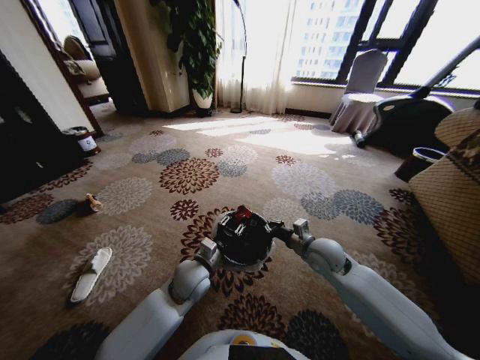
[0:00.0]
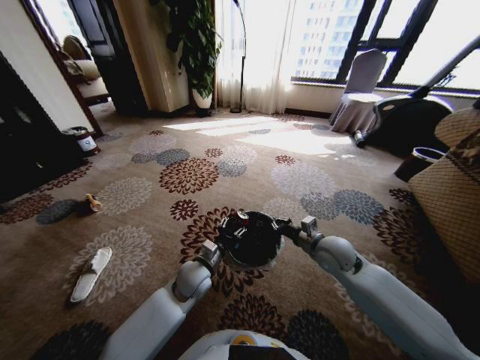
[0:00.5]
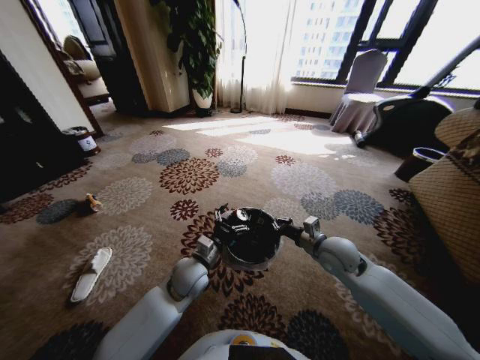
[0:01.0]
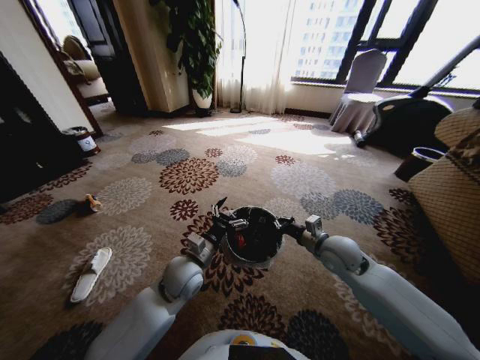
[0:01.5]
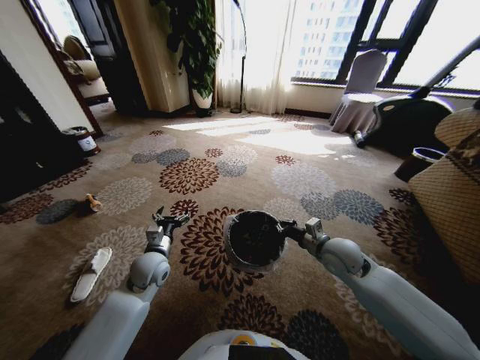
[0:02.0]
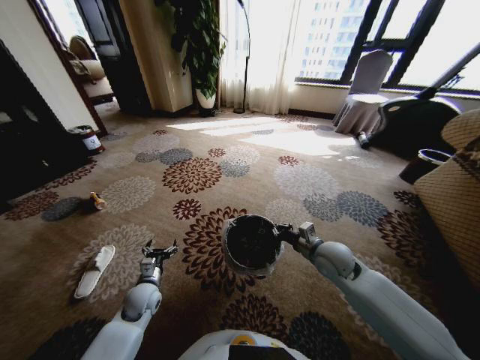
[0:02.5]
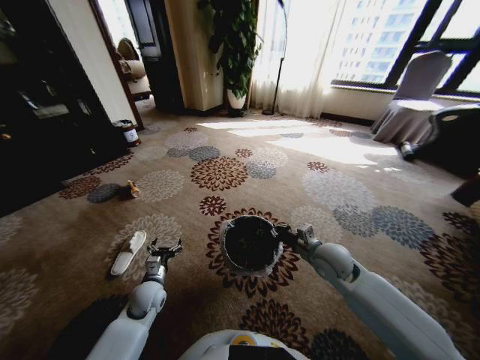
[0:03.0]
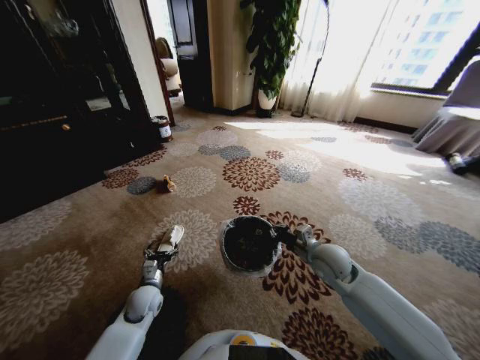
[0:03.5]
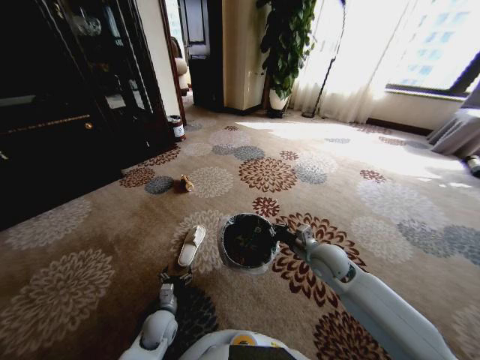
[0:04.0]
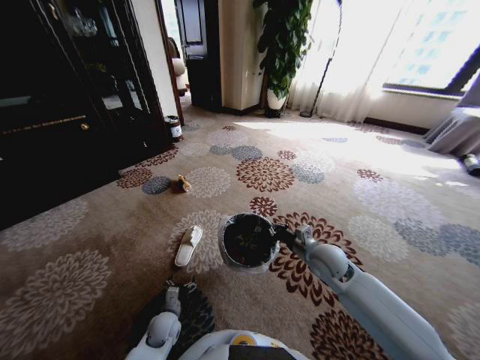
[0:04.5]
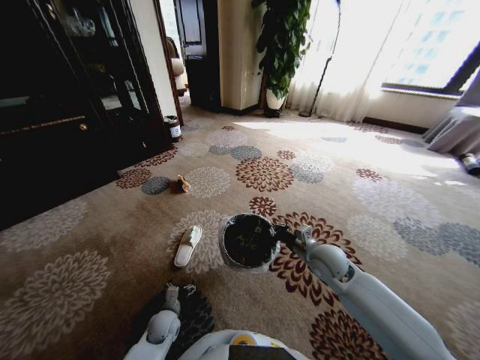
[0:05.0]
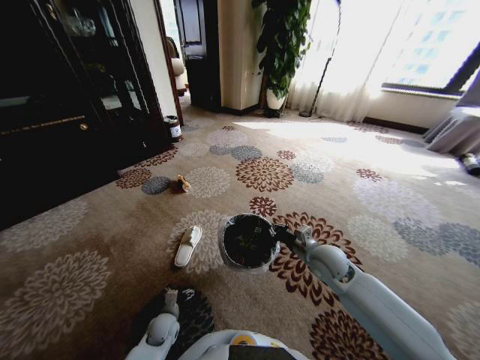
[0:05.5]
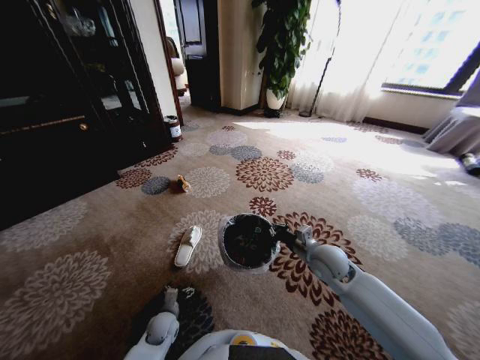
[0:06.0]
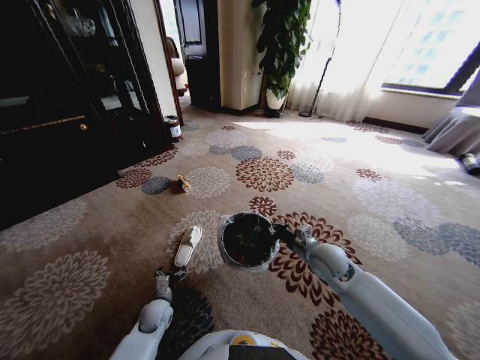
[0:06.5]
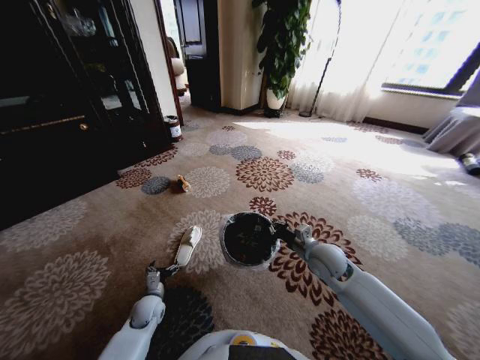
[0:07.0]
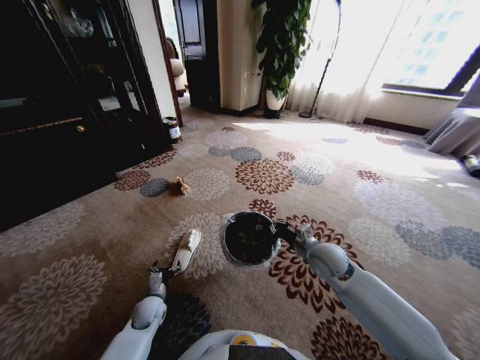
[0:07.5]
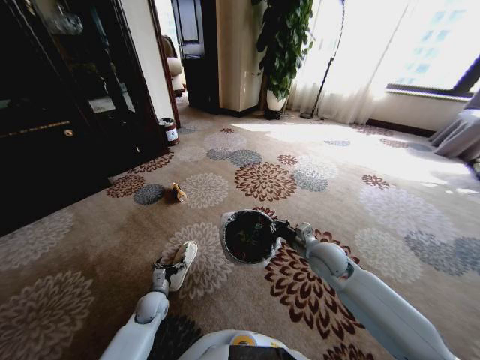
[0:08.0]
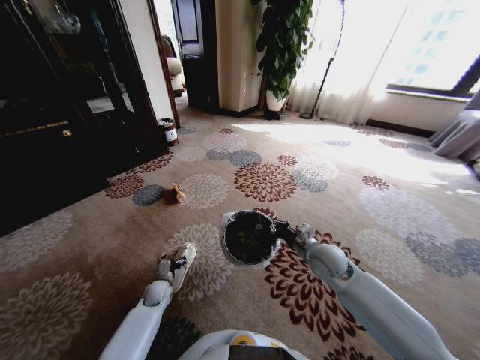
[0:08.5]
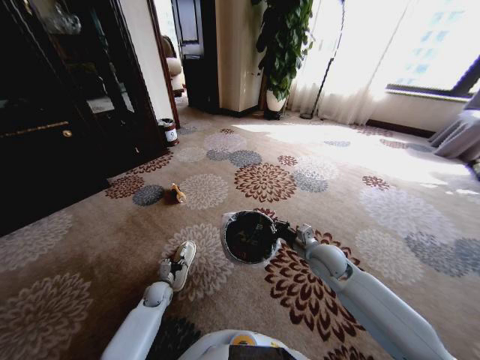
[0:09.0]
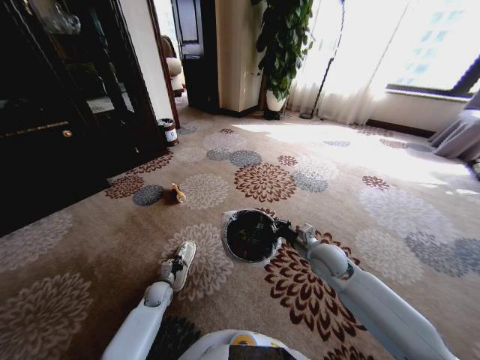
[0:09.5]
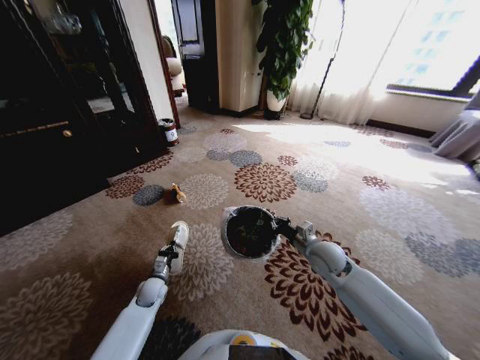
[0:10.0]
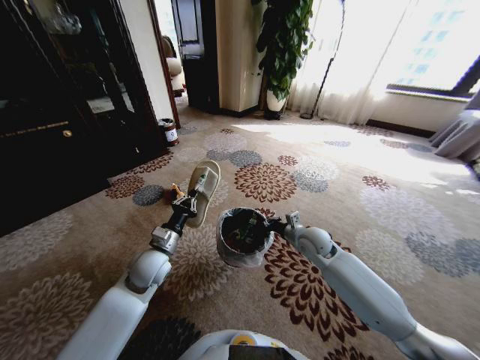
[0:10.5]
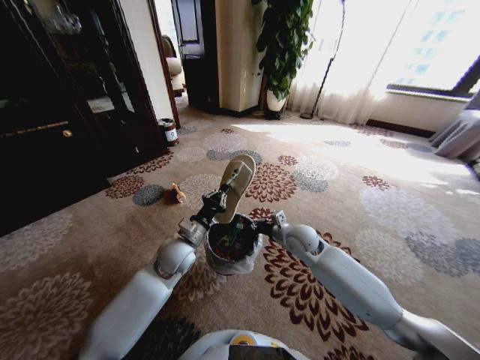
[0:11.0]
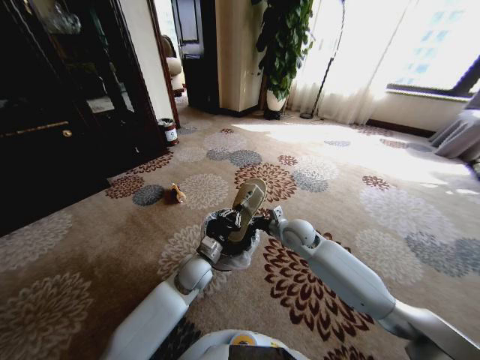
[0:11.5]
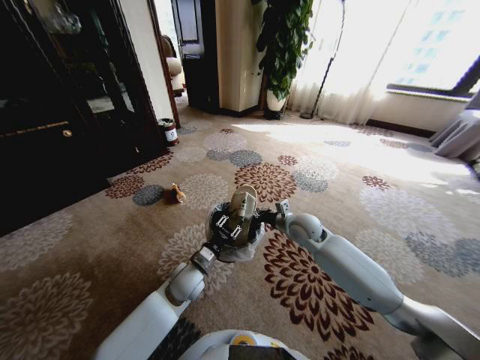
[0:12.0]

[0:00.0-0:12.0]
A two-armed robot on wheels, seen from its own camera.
Task of the whole recording: Pick up the trash from the ground and place it into the trash bin.
0:00.0 to 0:02.0: The left gripper goes some 10 cm to the left, and opens.
0:02.0 to 0:04.0: The left gripper travels downward and backward by about 20 cm.
0:04.0 to 0:06.0: The left gripper is displaced downward by approximately 5 cm.
0:06.0 to 0:08.0: The left gripper shifts roughly 5 cm upward.
0:08.0 to 0:10.0: The left gripper closes up.
0:10.0 to 0:12.0: The left gripper moves to the right and upward, about 20 cm. Meanwhile the right gripper is displaced forward and to the left by about 10 cm.

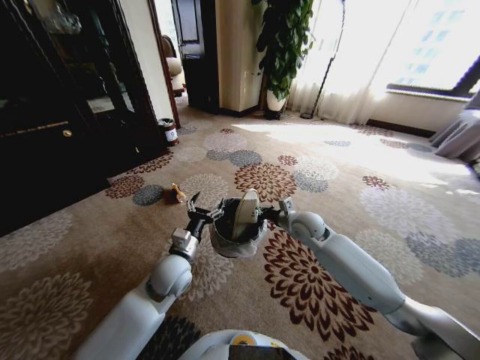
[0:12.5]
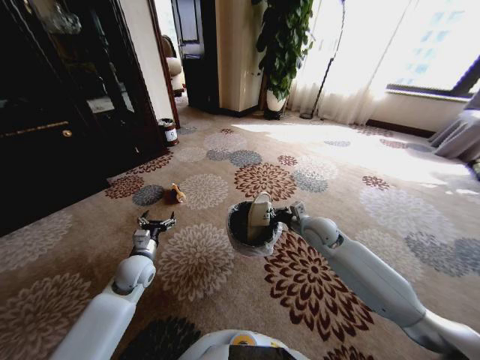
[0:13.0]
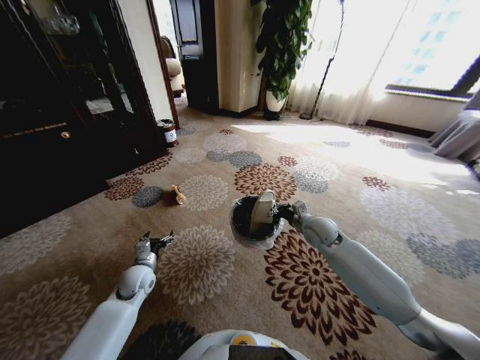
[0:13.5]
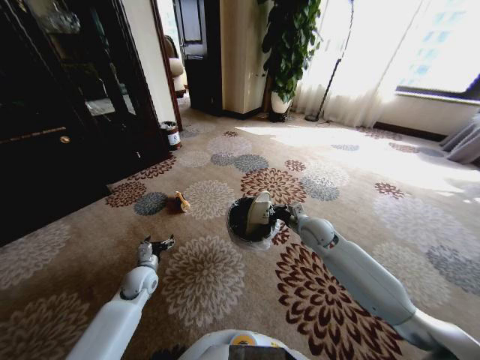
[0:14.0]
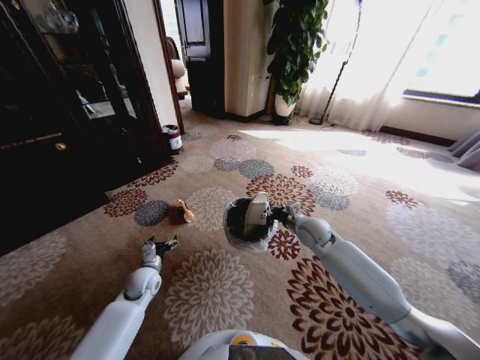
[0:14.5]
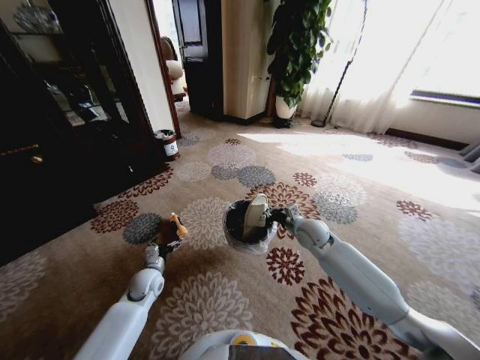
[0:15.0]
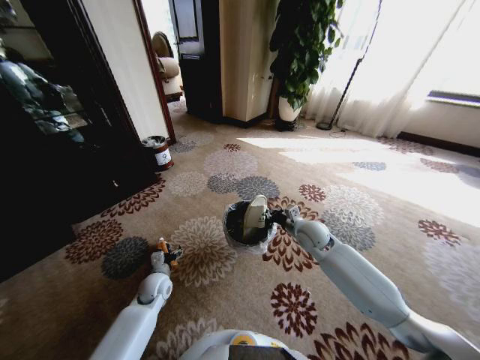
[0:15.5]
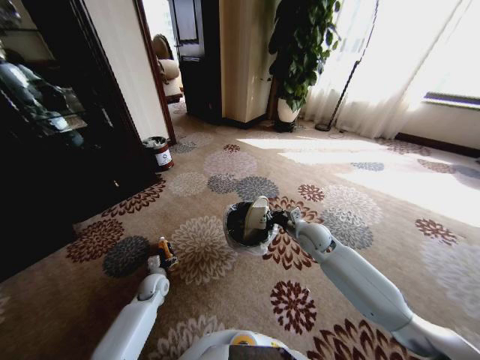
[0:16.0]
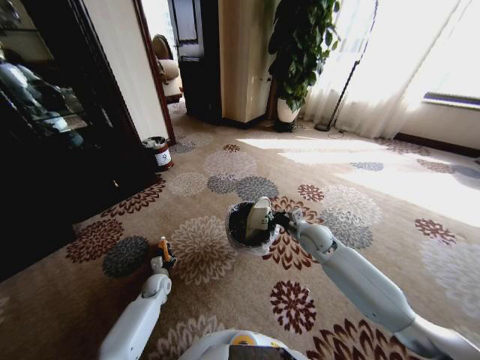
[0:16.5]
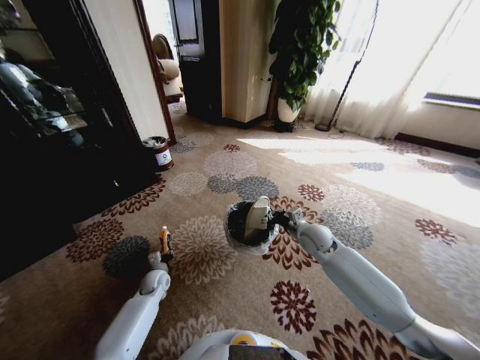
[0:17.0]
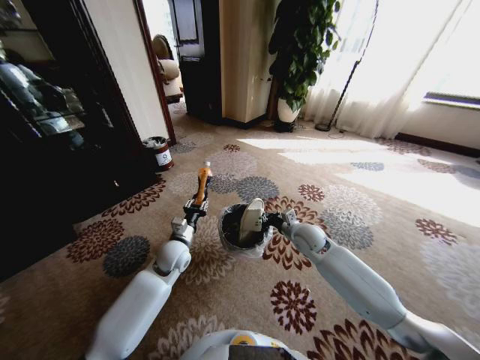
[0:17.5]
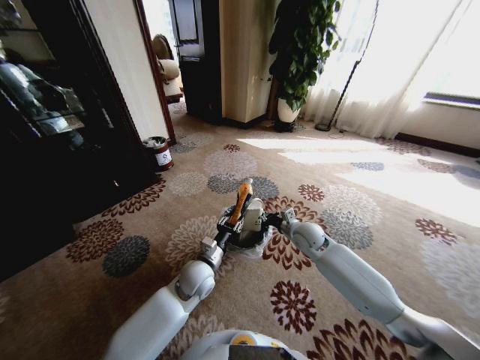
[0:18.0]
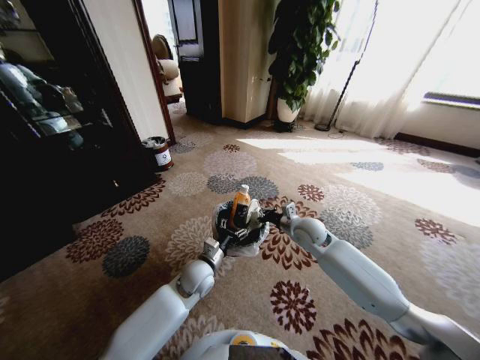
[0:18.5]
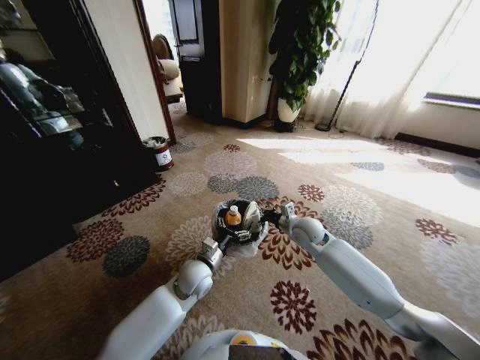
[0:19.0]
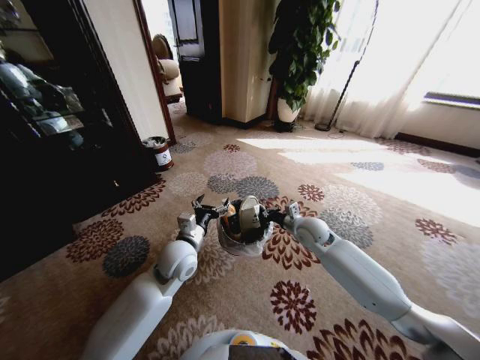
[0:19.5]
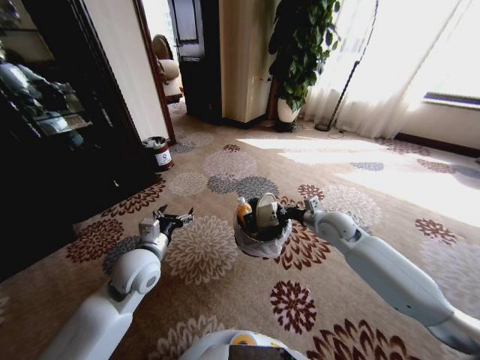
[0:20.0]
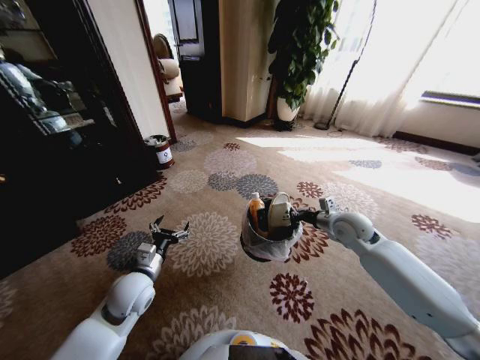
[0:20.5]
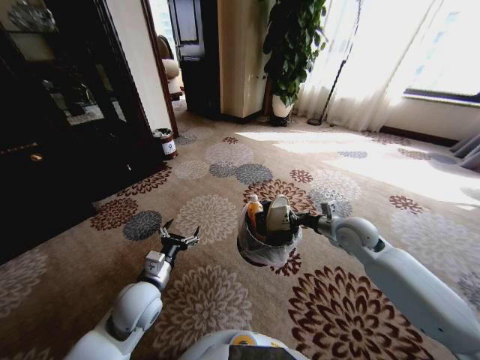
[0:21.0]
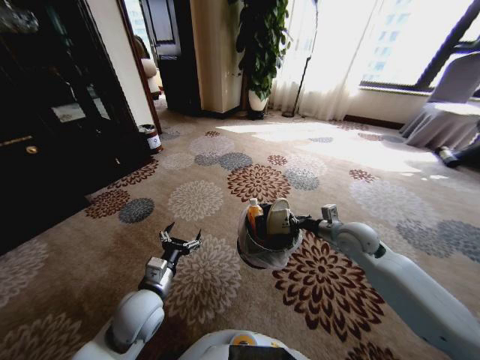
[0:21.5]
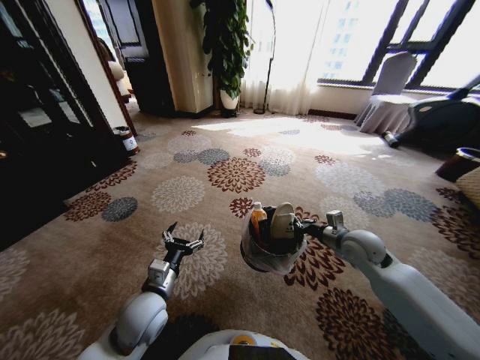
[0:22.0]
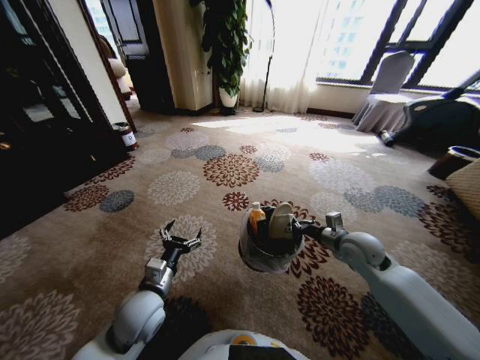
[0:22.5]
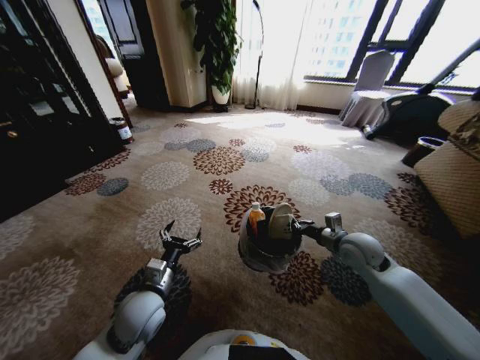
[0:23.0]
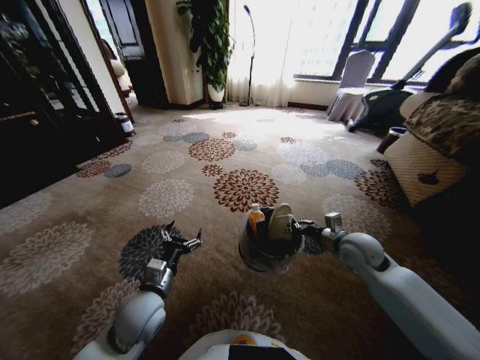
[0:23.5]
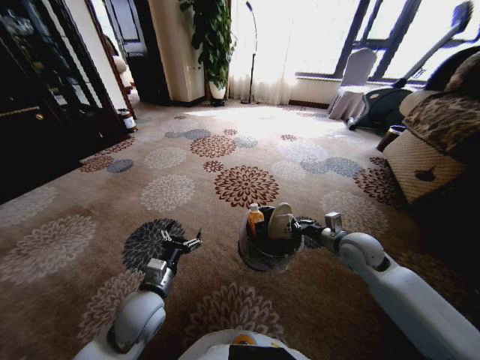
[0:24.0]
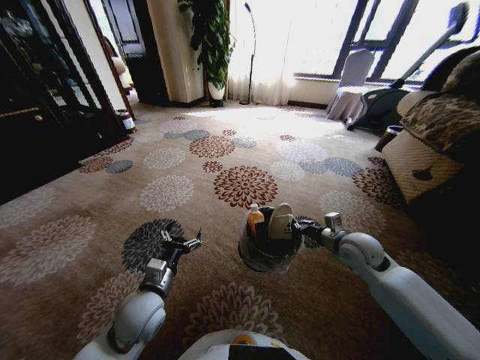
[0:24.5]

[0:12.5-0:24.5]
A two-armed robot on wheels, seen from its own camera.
Task of the whole recording: Pick up the trash from the ground and place it into the trash bin.
0:12.5 to 0:14.5: The left gripper moves to the left and downward, about 20 cm.
0:14.5 to 0:16.5: The left gripper is displaced downward by roughly 10 cm.
0:16.5 to 0:18.5: The left gripper heads to the right and upward, covering roughly 25 cm, and closes and opens again.
0:18.5 to 0:20.5: The right gripper goes roughly 10 cm to the right; the left gripper is displaced to the left and backward by some 15 cm.
0:20.5 to 0:22.5: The left gripper moves approximately 5 cm; the right gripper shifts roughly 5 cm backward.

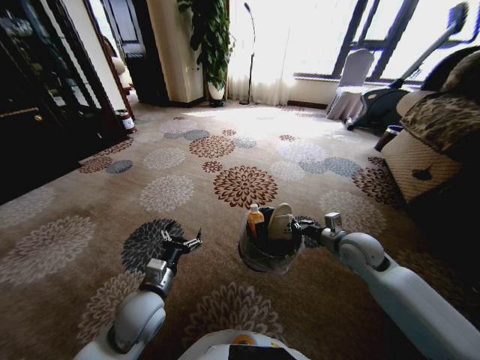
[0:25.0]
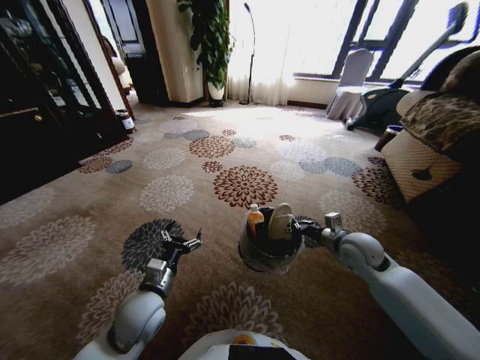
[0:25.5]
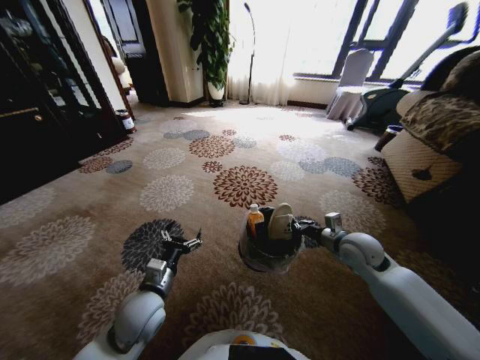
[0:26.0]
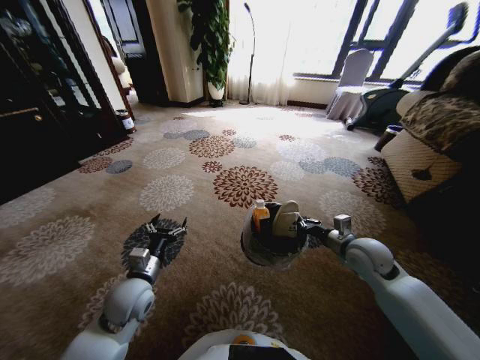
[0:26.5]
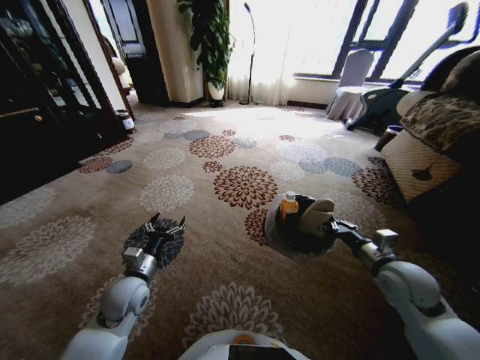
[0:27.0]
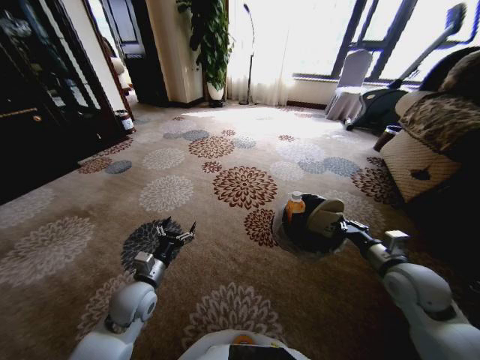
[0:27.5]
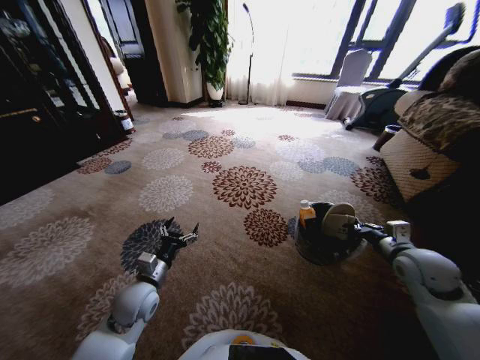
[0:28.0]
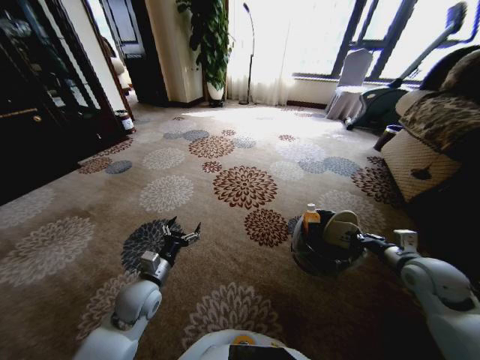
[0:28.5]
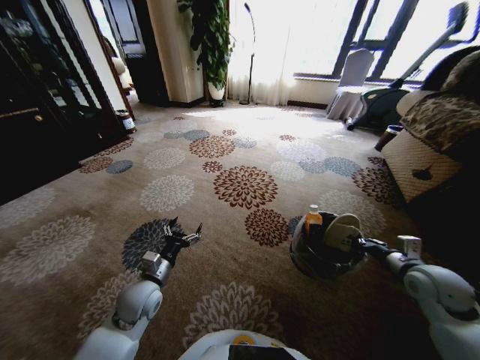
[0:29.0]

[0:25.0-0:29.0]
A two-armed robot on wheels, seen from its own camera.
Task of the whole recording: Pick up the trash from the ground and place it into the trash bin.
0:25.0 to 0:27.0: The right gripper is displaced backward and to the right by roughly 10 cm. Meanwhile the left gripper travels to the left by approximately 5 cm.
0:27.0 to 0:29.0: The right gripper travels to the right by roughly 5 cm.
